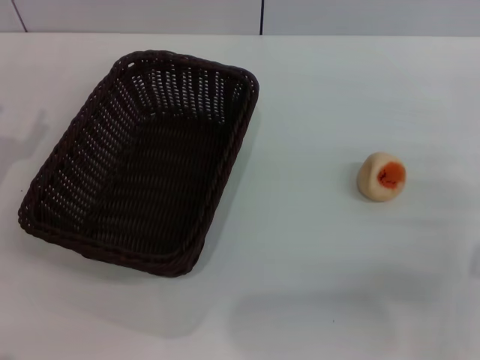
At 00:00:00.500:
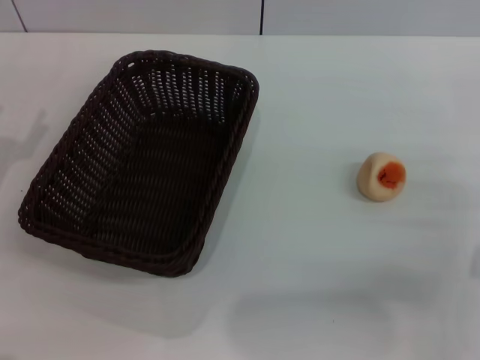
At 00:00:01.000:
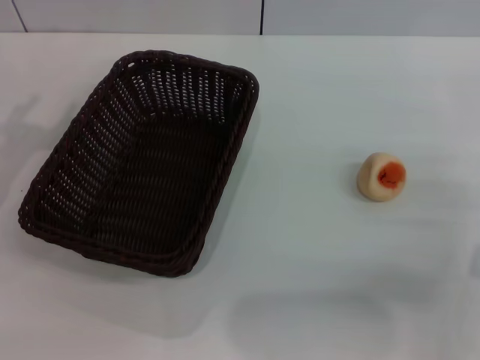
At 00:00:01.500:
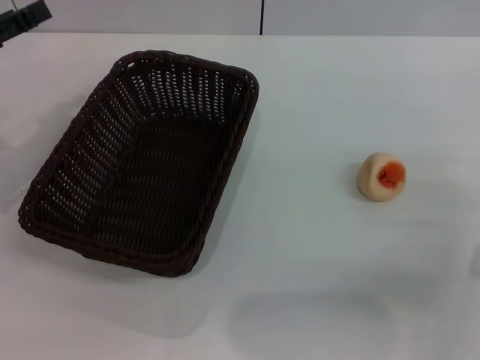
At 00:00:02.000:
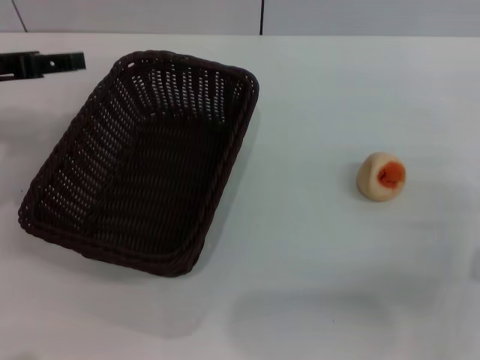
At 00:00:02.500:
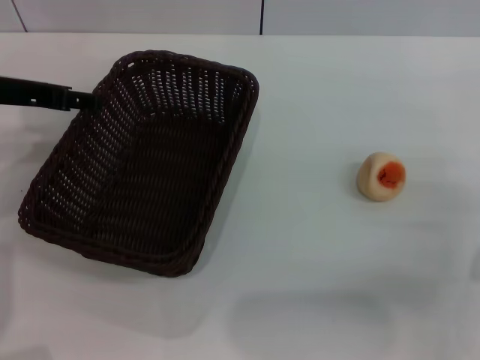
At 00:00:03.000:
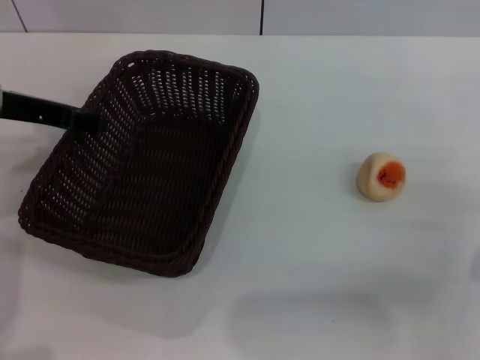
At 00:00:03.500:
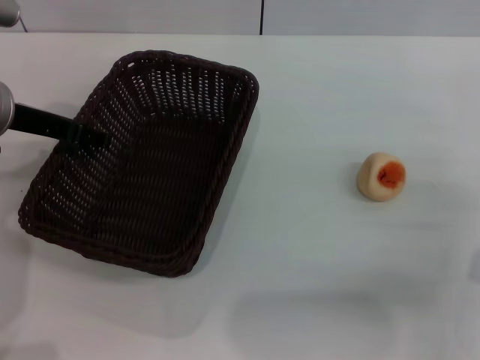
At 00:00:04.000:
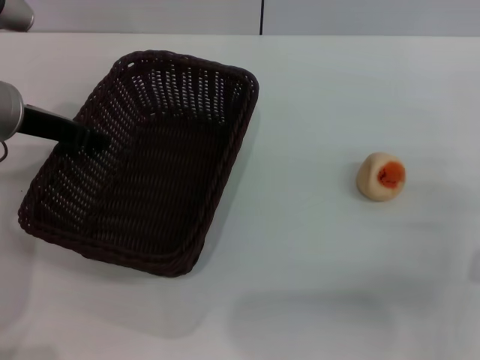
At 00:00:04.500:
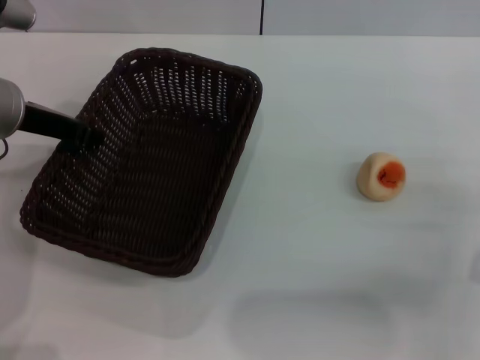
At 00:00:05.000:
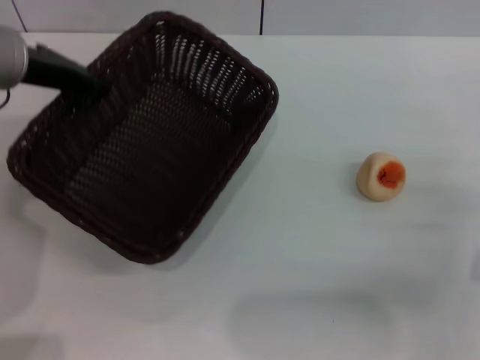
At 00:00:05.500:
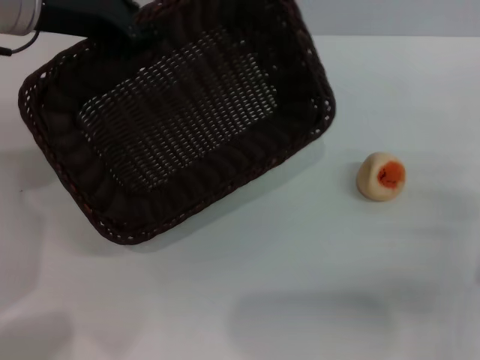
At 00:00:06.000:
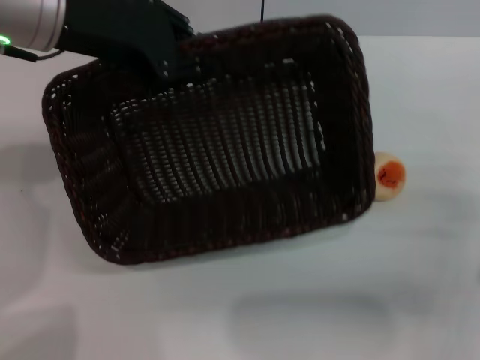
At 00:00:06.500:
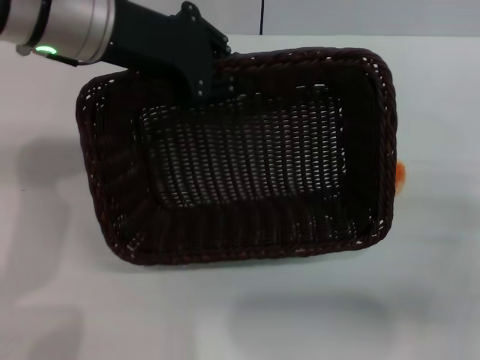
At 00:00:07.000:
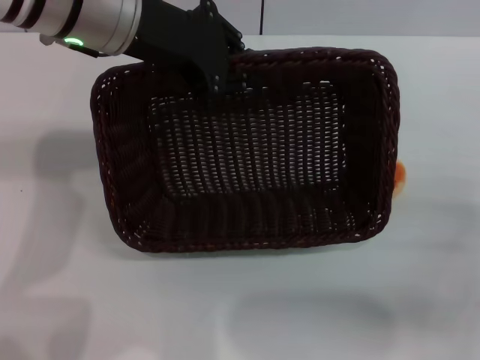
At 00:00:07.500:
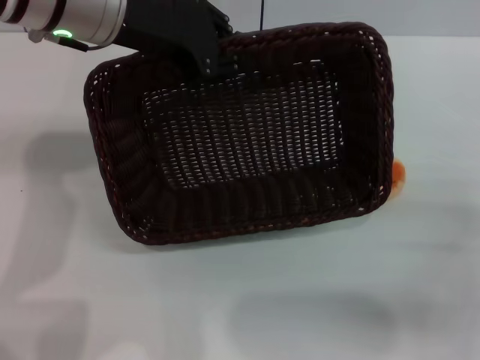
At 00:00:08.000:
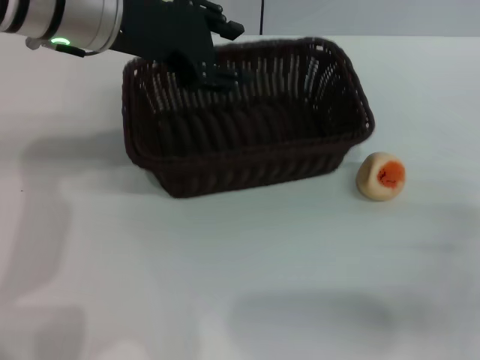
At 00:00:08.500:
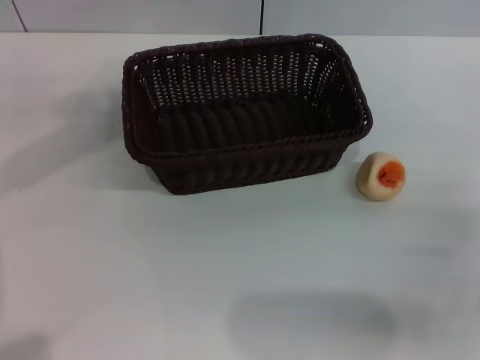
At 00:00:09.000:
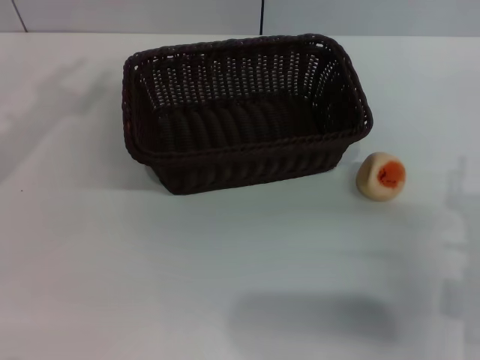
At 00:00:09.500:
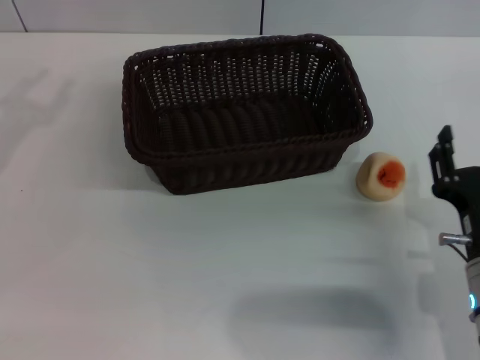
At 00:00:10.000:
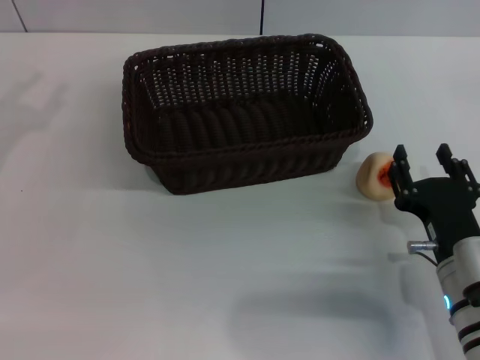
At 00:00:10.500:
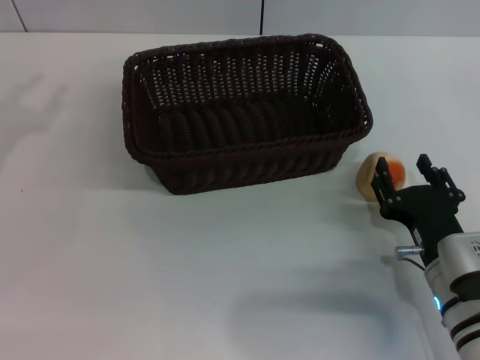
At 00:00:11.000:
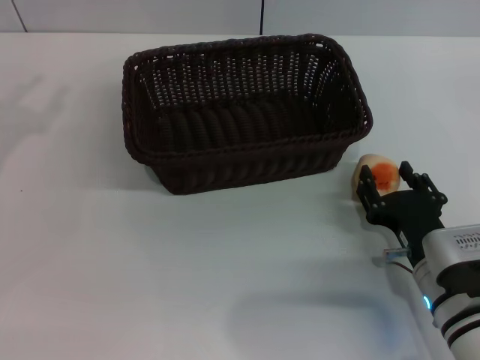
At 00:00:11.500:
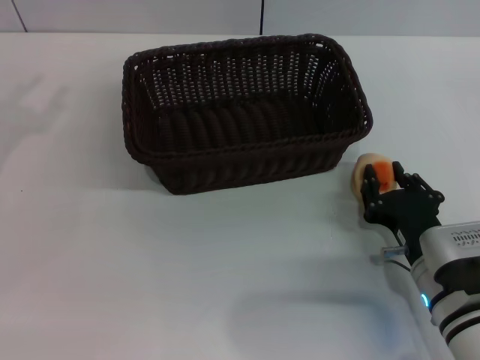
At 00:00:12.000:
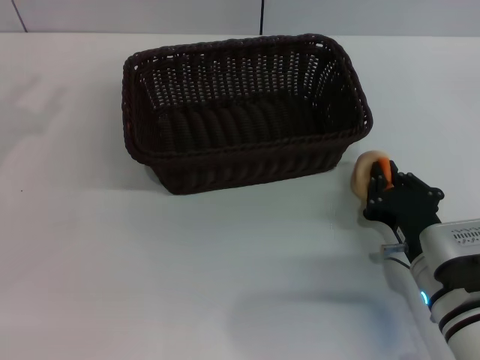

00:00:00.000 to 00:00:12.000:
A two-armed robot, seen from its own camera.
Step, 00:00:00.000 to 00:00:08.000: Move the basket to the center of view with the left gripper.
00:00:00.000 to 00:00:02.000: The left gripper shifts roughly 15 cm upward and forward.
00:00:02.000 to 00:00:04.000: The left gripper travels to the right by approximately 5 cm.
00:00:04.000 to 00:00:06.000: The left gripper travels upward and to the right by roughly 10 cm, and closes its fingers.
00:00:08.000 to 00:00:10.000: The left gripper goes about 25 cm to the left and backward. The right gripper goes some 10 cm to the left.
00:00:10.000 to 00:00:12.000: The right gripper closes.

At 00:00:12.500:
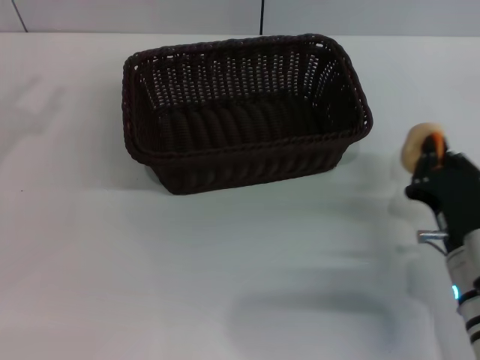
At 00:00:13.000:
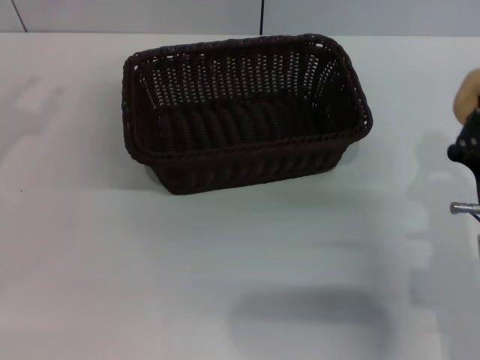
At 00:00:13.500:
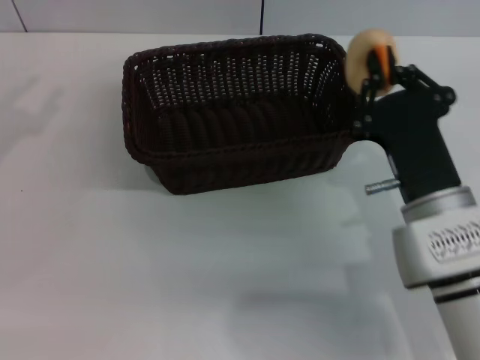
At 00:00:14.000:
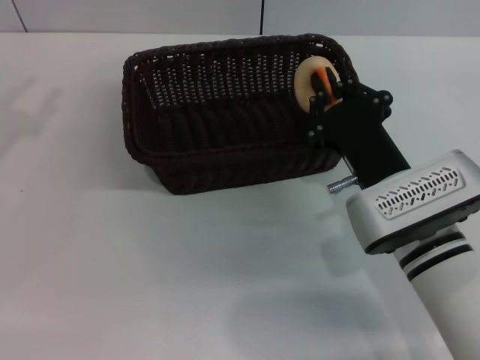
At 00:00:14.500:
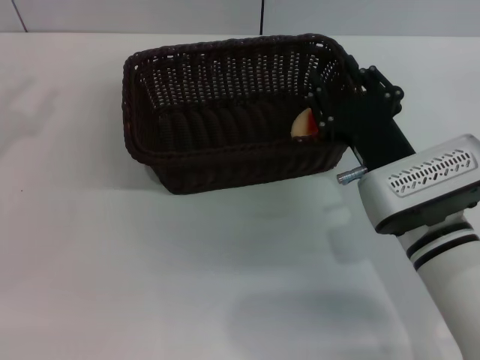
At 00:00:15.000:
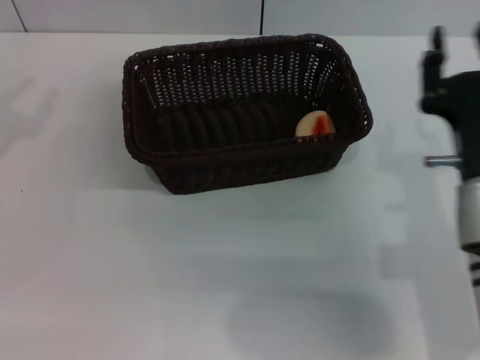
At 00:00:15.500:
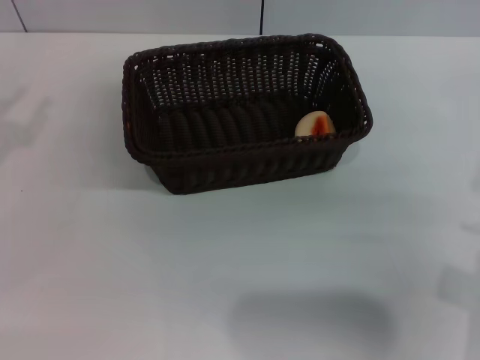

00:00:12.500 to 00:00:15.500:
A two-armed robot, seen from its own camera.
Step, 00:00:13.000 to 00:00:14.500: Place the egg yolk pastry into the basket with the right gripper.
00:00:12.500 to 00:00:14.000: The right gripper travels to the left by roughly 5 cm.
00:00:14.000 to 00:00:15.500: The right gripper shifts some 10 cm to the right and backward, and opens its fingers.

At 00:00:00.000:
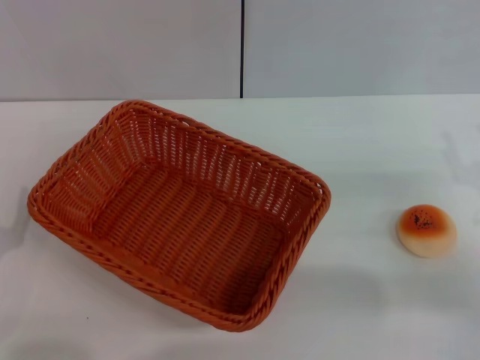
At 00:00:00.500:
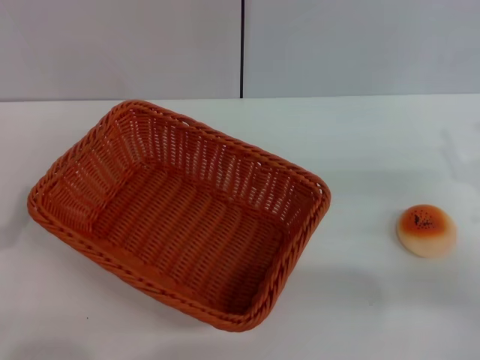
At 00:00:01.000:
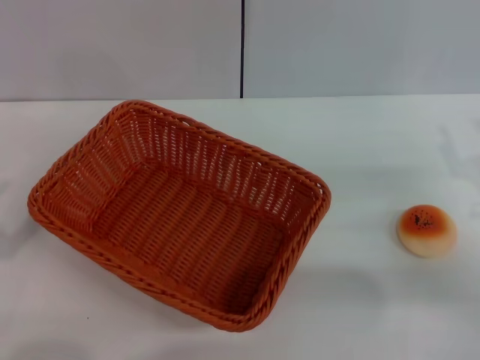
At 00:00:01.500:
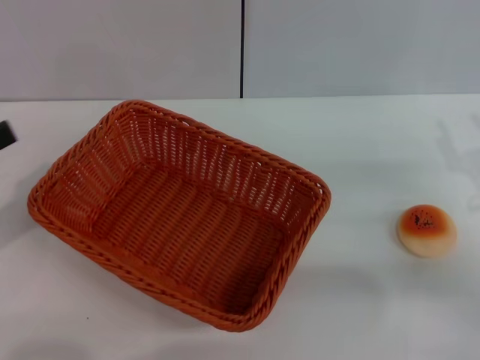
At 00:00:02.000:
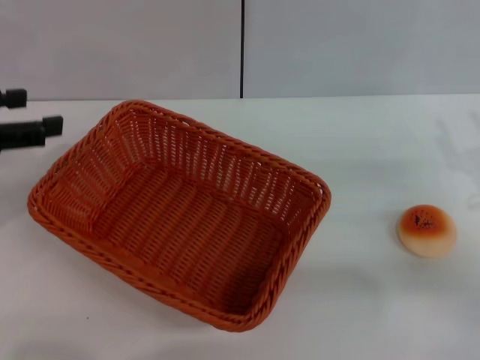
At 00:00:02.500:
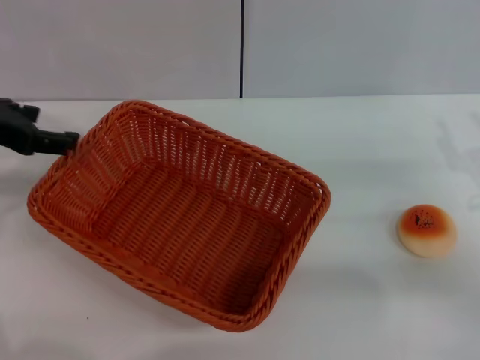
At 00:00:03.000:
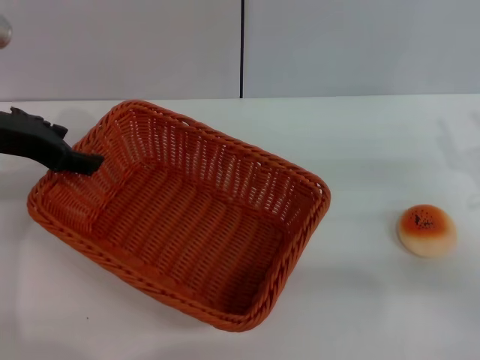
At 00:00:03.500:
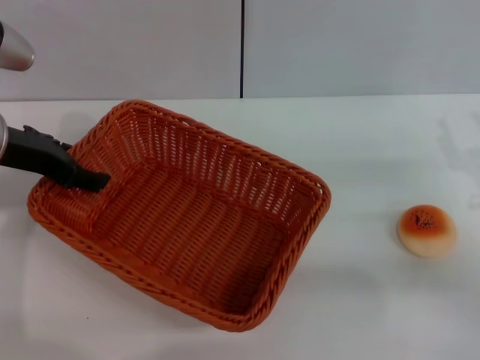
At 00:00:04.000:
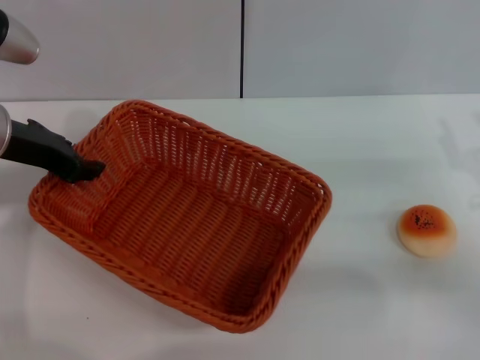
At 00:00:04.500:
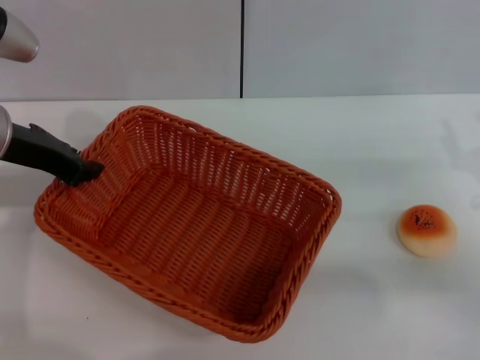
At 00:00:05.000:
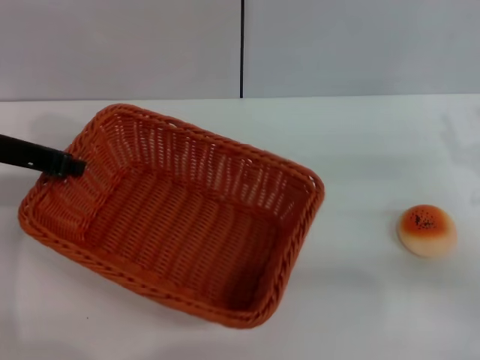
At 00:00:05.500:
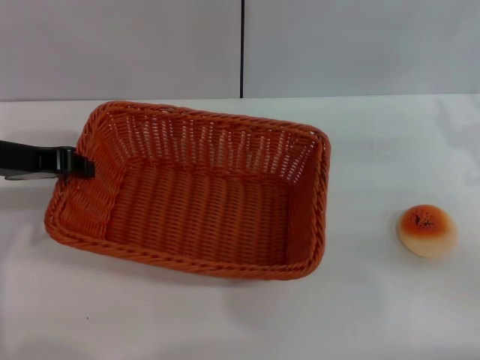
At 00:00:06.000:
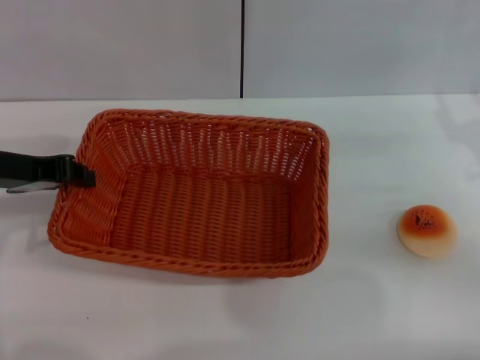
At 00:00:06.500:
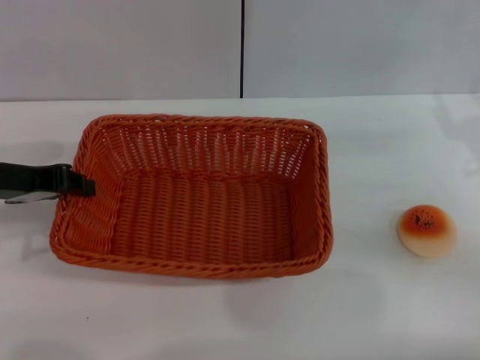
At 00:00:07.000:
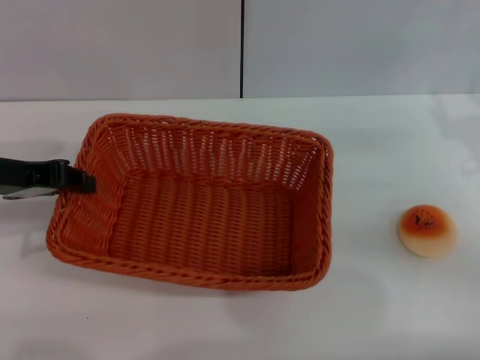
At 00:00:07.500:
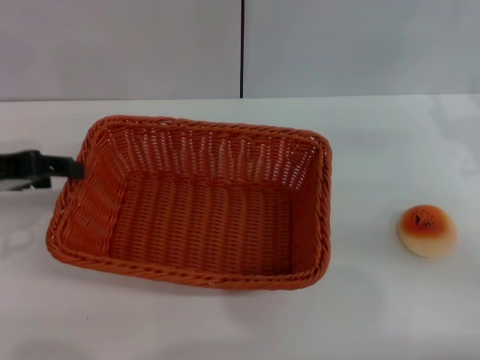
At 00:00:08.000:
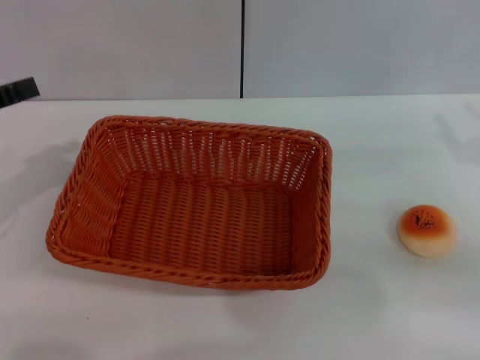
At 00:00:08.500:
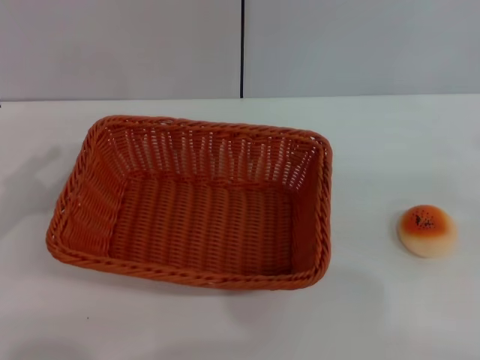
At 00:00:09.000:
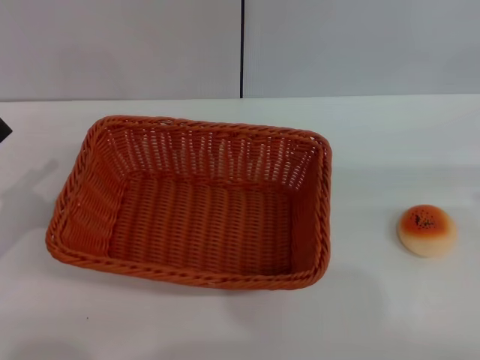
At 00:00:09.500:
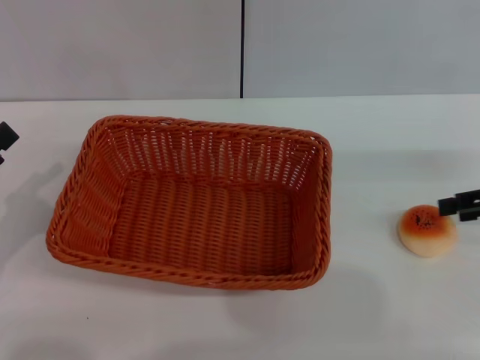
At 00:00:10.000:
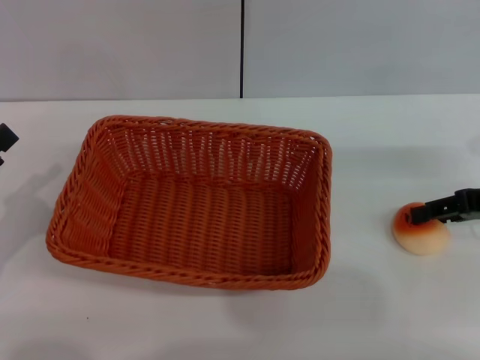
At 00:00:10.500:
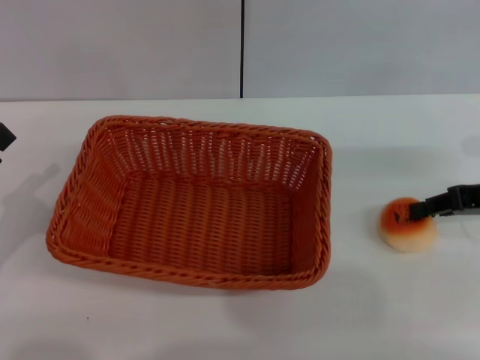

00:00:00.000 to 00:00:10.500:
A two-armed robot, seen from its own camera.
Step, 00:00:00.000 to 00:00:07.500: Move the basket to the center of view with the left gripper.
00:00:00.000 to 00:00:02.000: The left gripper moves upward and forward, about 20 cm.
00:00:02.000 to 00:00:04.000: The left gripper heads to the right and forward, covering roughly 10 cm.
00:00:04.000 to 00:00:06.500: The right gripper moves approximately 5 cm. Meanwhile the left gripper shifts by roughly 5 cm, and closes.
00:00:06.500 to 00:00:08.500: The right gripper shifts some 15 cm to the right, upward and backward. Meanwhile the left gripper goes about 10 cm to the left and backward, and opens.
00:00:08.500 to 00:00:10.500: The right gripper is displaced to the left, forward and downward by some 15 cm, and closes its fingers.
